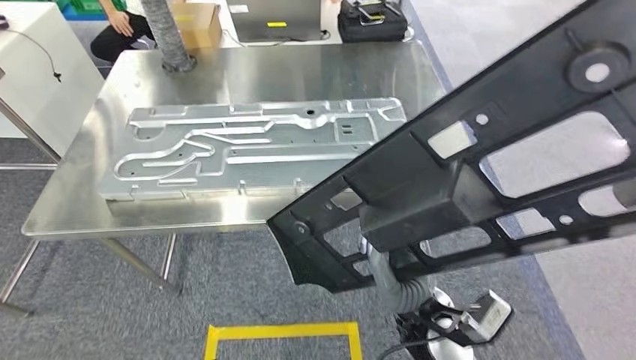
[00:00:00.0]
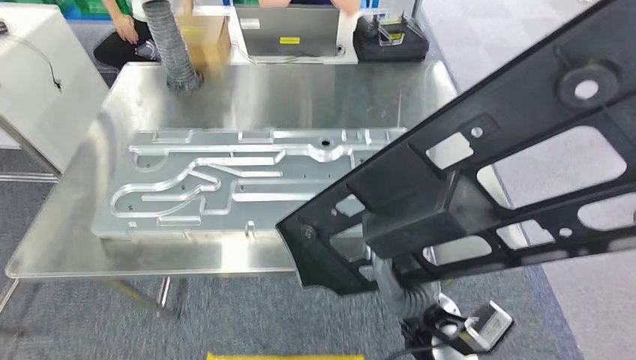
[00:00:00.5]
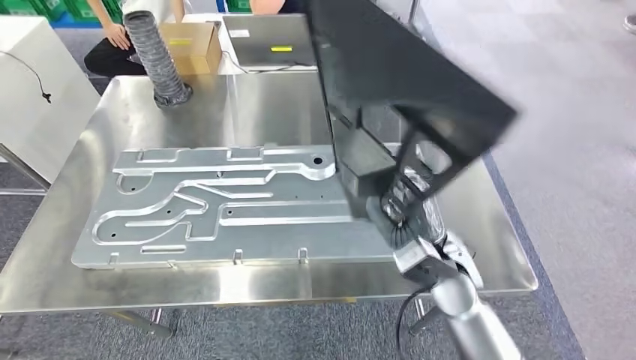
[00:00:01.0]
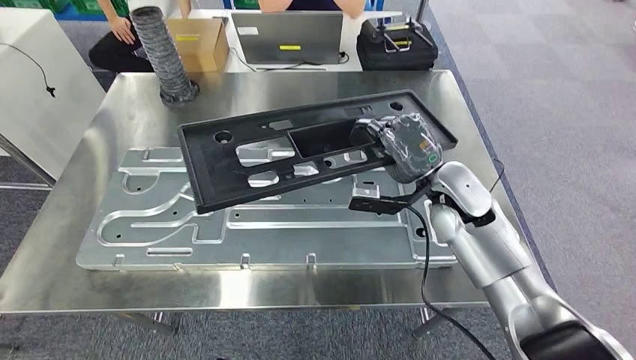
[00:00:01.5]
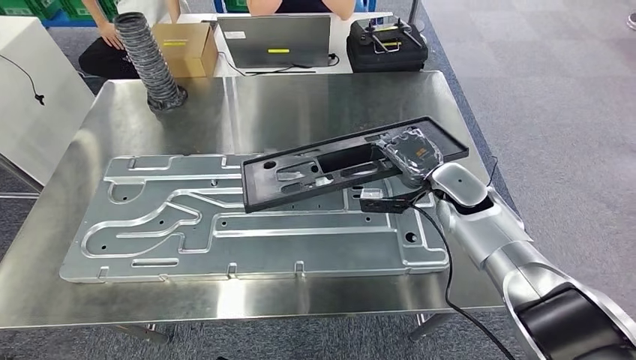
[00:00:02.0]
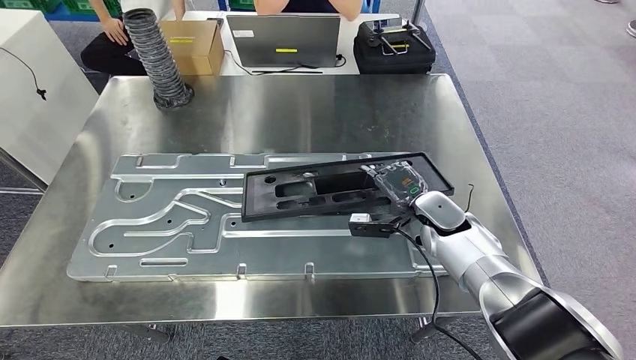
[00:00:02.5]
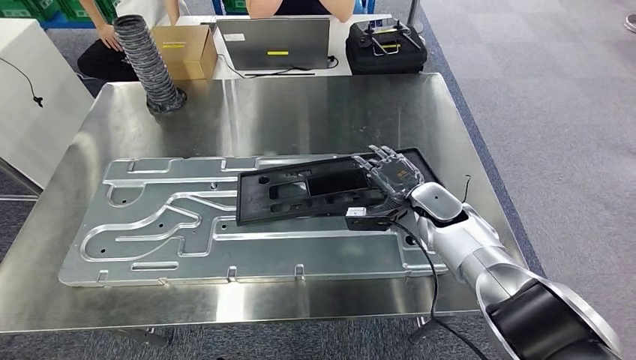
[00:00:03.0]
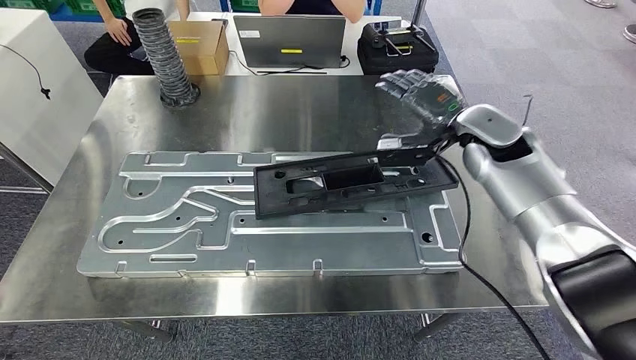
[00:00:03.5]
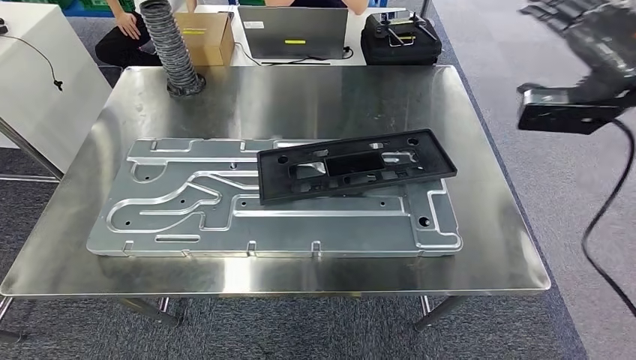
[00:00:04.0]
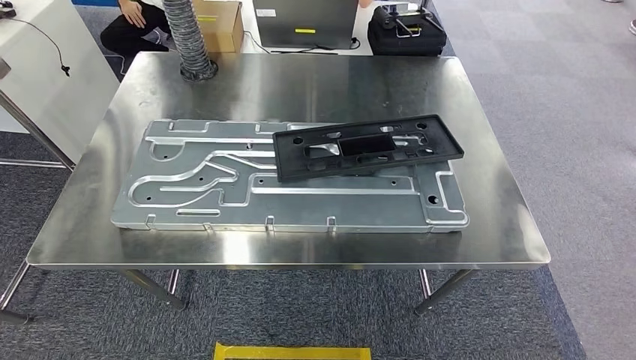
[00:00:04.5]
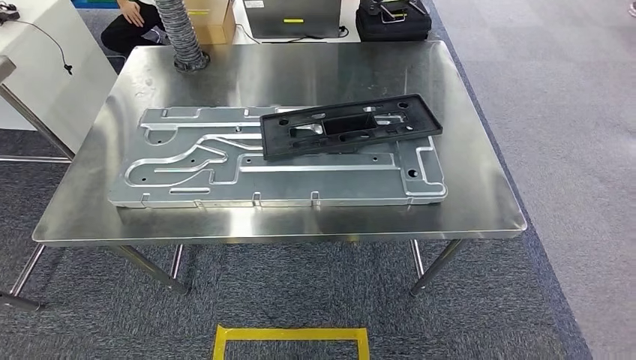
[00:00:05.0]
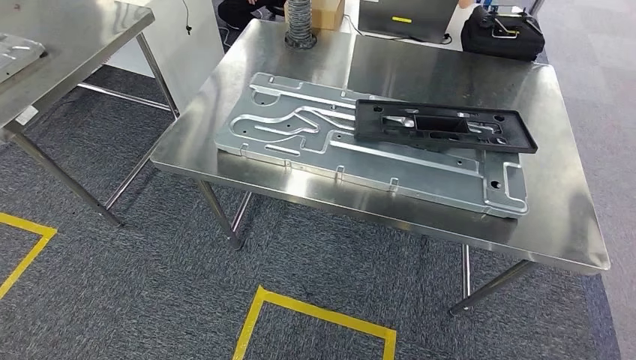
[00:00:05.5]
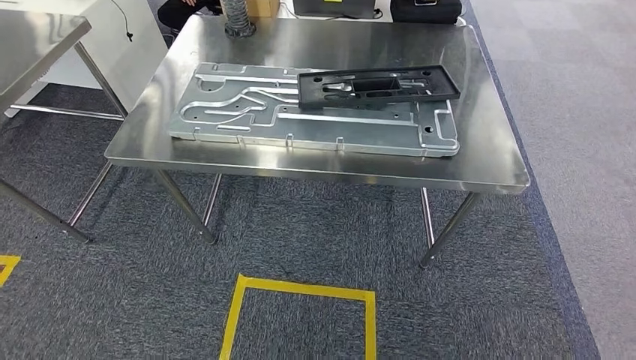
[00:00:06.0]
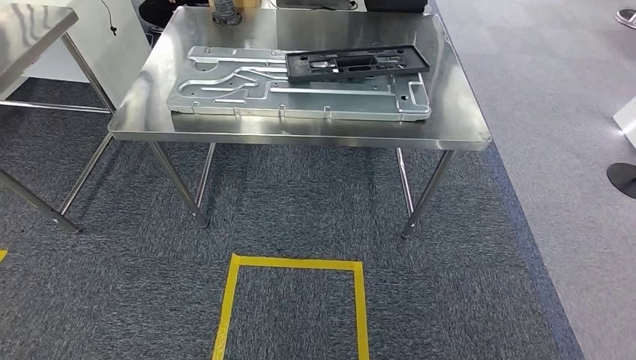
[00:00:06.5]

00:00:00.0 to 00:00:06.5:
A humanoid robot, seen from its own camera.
Step, 00:00:00.0 to 00:00:02.0: Insert the large parts into the corresponding slots on the workbench.
Step, 00:00:03.0 to 00:00:06.5: Return to the initial position at the shelf.

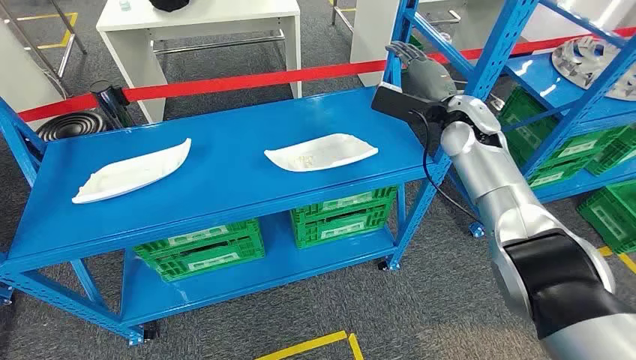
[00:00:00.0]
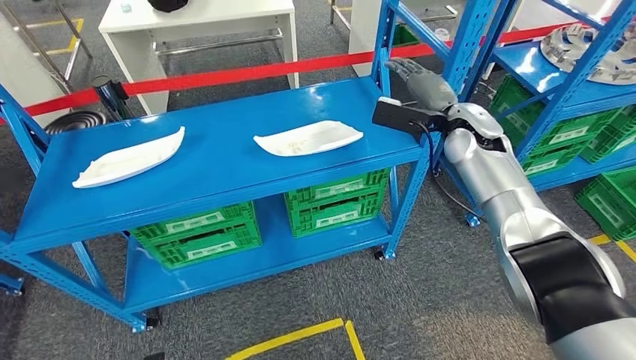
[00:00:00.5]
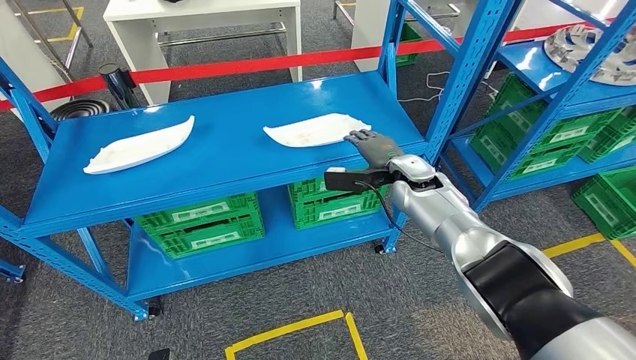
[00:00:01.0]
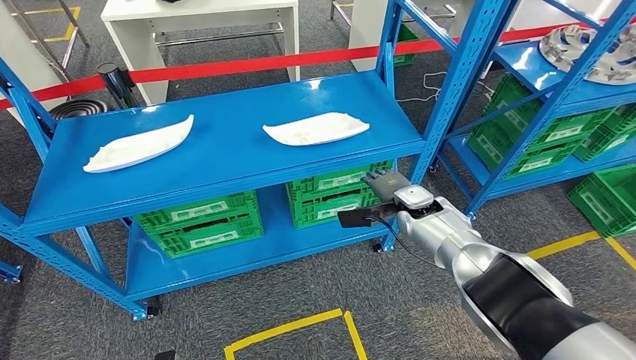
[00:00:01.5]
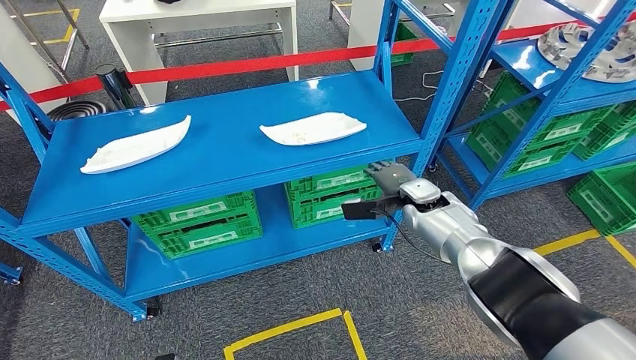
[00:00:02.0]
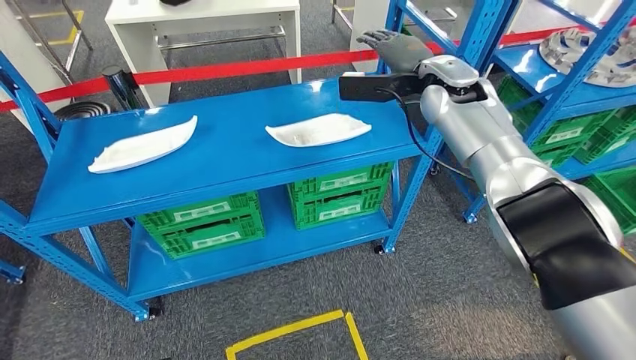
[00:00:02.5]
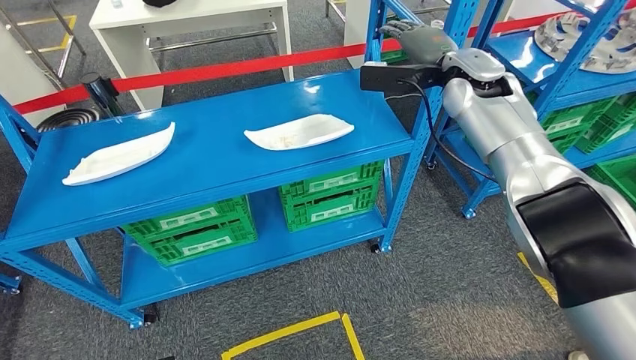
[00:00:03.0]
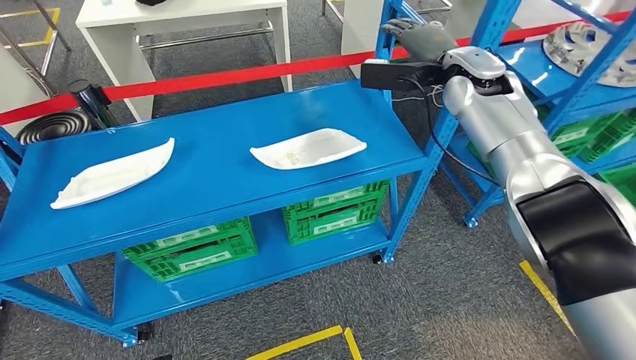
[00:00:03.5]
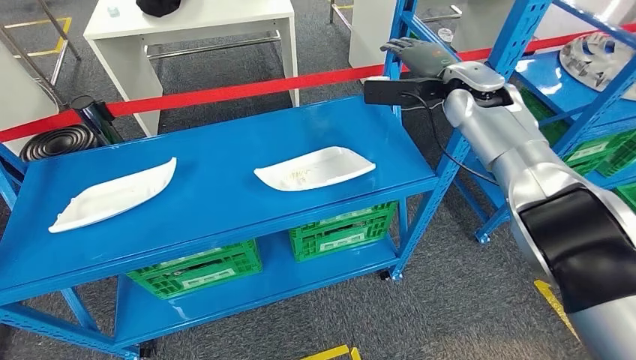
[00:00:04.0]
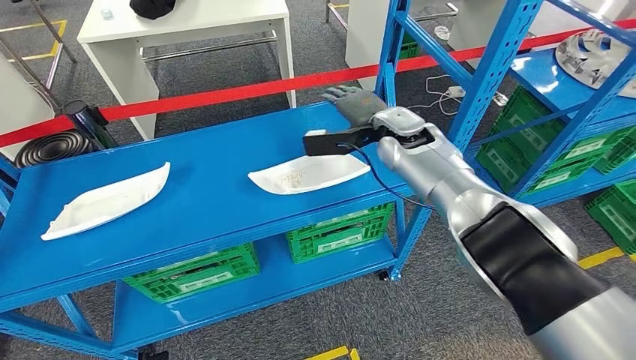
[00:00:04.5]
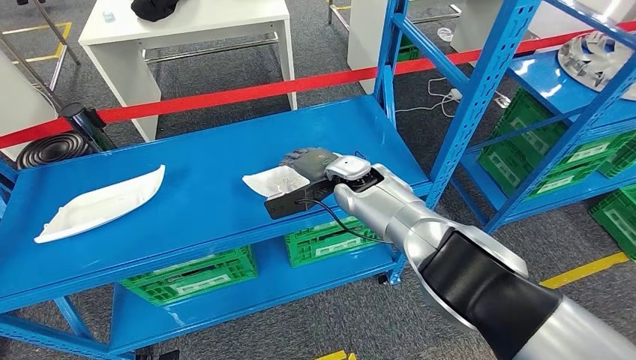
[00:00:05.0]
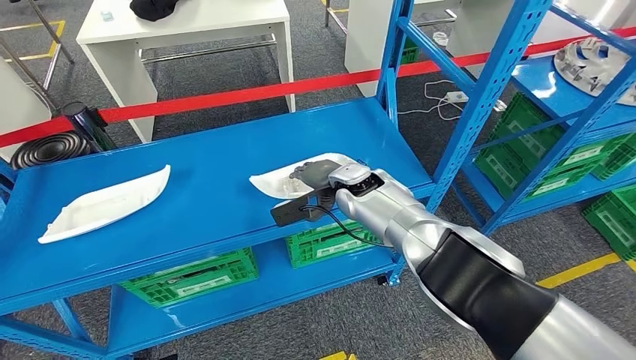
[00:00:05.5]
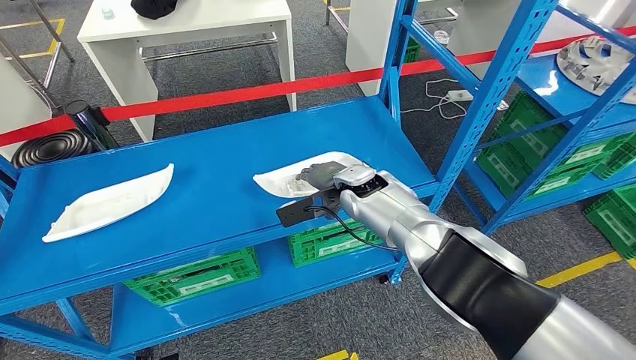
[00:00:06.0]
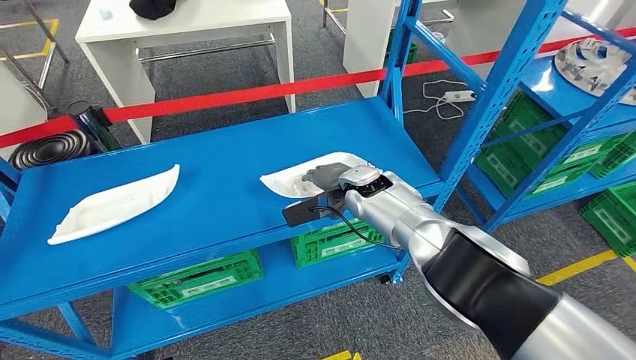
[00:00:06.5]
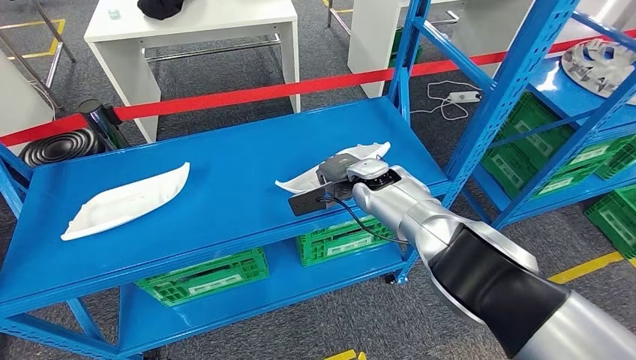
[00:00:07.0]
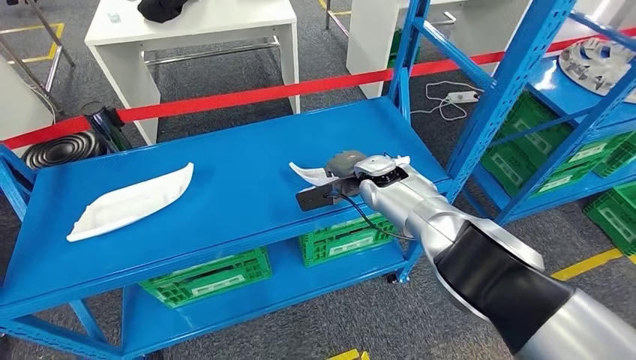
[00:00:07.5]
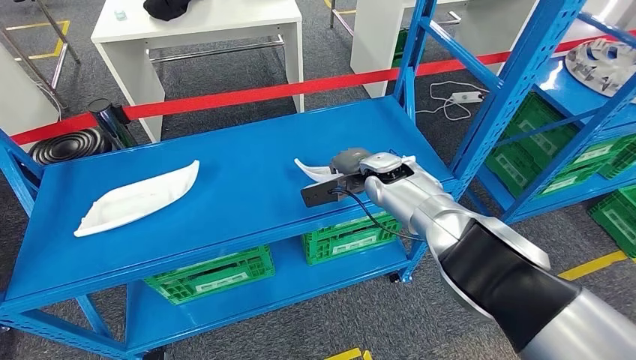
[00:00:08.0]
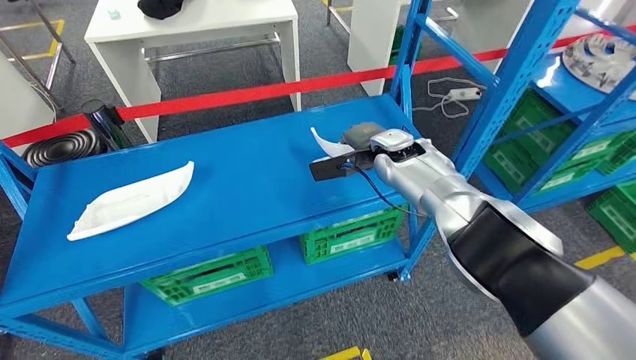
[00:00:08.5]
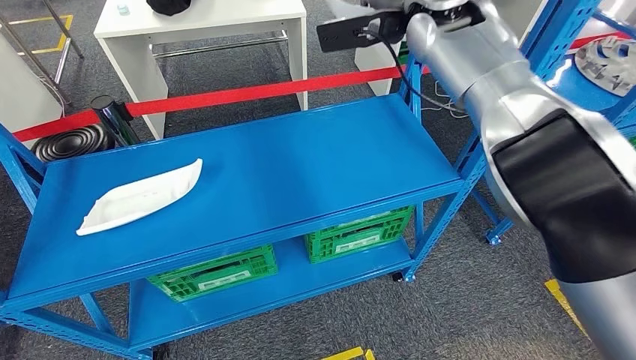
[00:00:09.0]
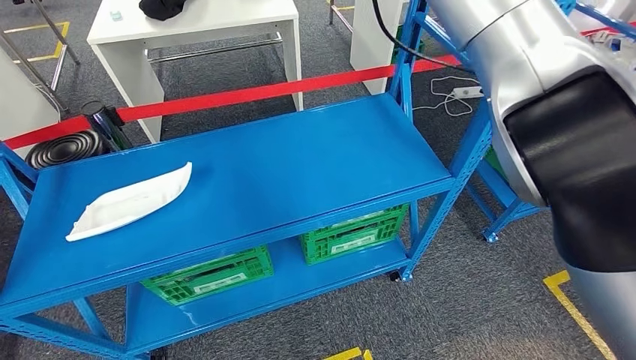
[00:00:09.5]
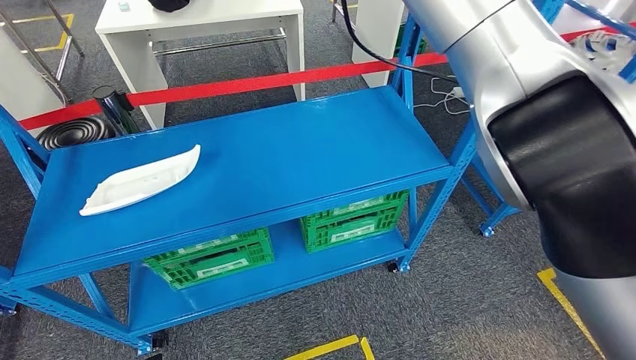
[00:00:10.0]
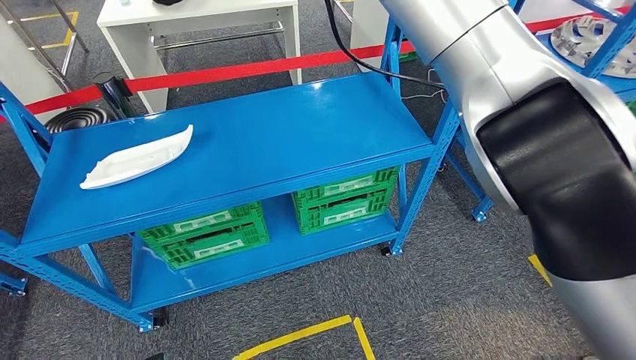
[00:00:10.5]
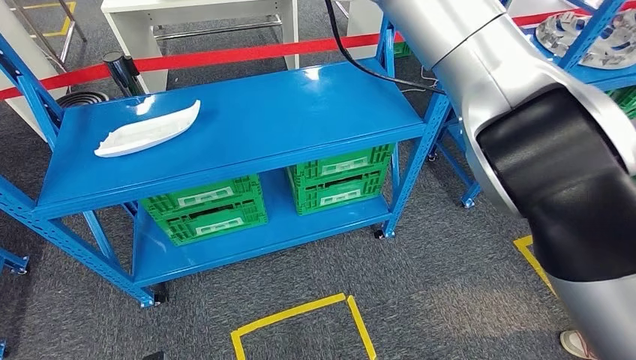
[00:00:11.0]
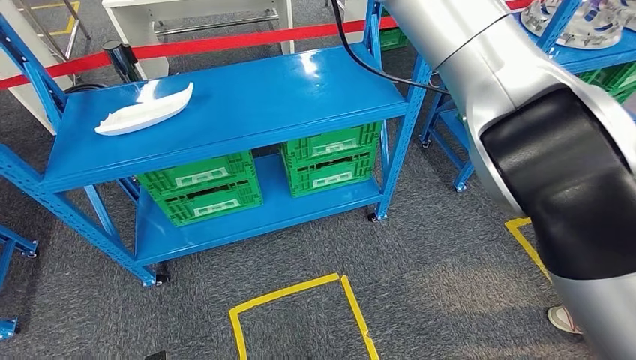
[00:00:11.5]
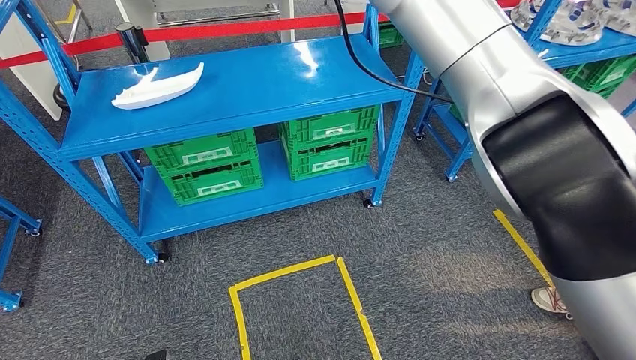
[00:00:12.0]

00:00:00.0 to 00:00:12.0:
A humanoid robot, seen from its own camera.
Step, 00:00:00.0 to 00:00:09.0: Pick up the small parts from the shelf.

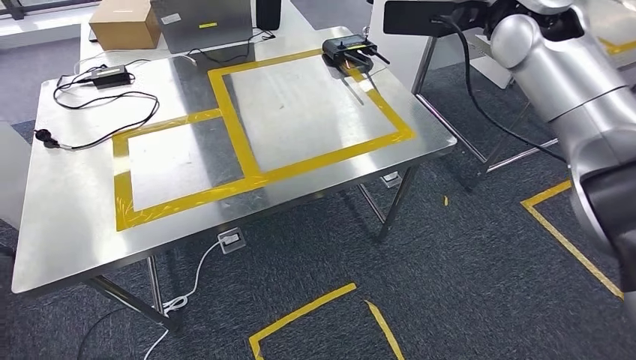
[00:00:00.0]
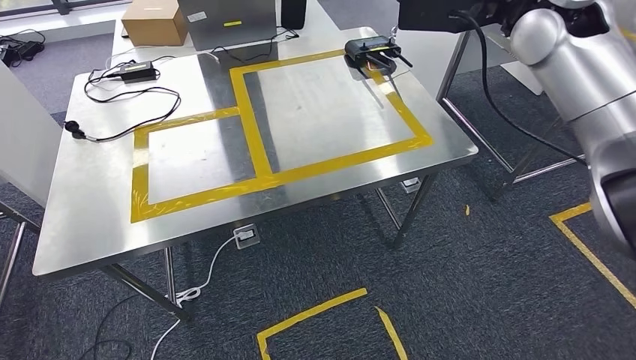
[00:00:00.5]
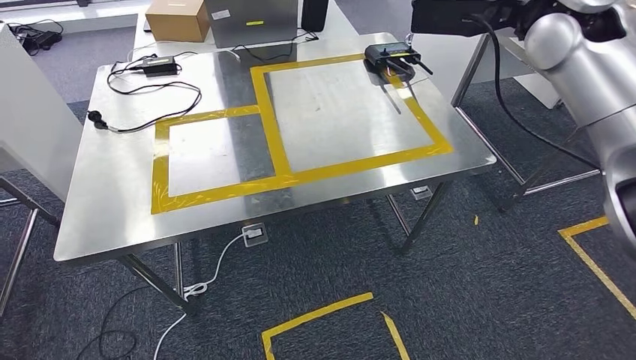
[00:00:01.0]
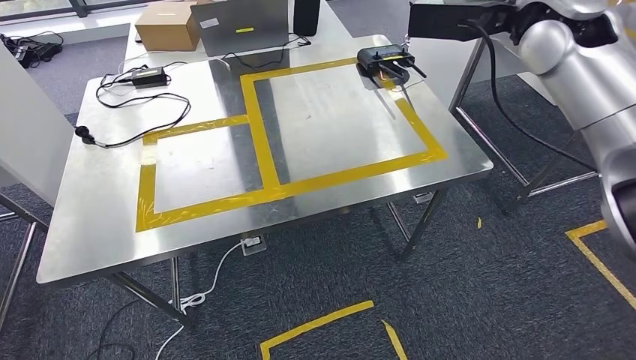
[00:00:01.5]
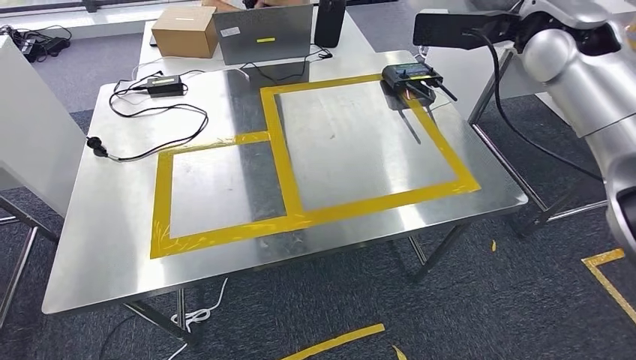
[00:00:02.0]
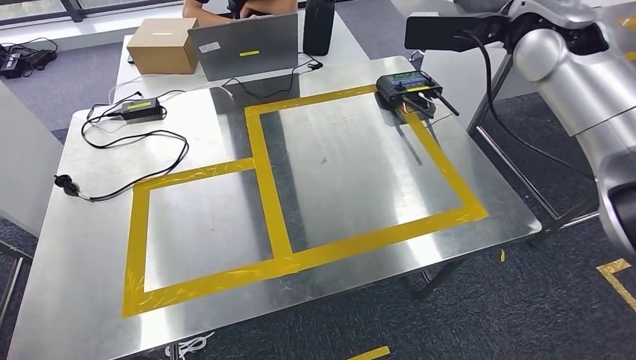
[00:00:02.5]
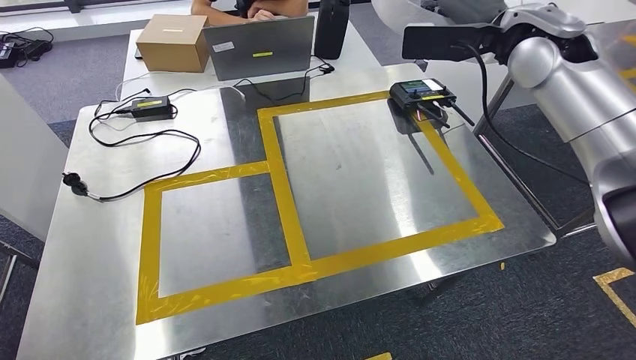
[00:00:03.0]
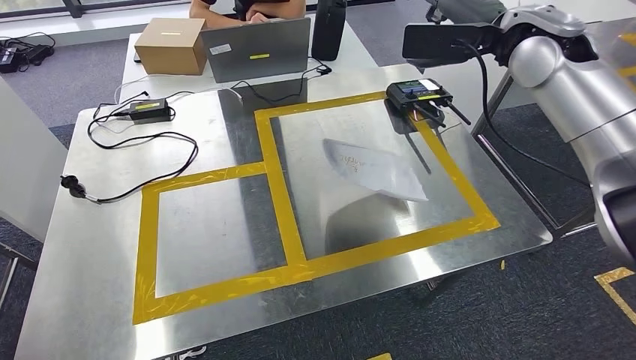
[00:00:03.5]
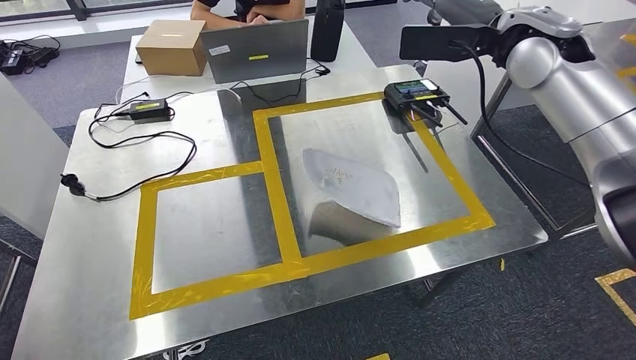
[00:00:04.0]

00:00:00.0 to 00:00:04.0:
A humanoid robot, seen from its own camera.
Step, 00:00:00.0 to 00:00:03.0: Move the small parts to the workbench.
